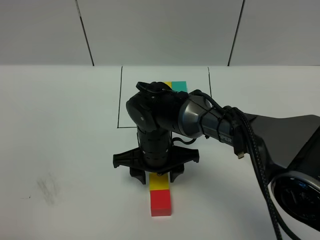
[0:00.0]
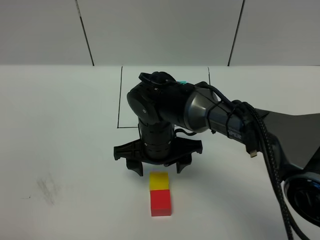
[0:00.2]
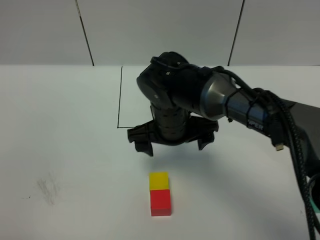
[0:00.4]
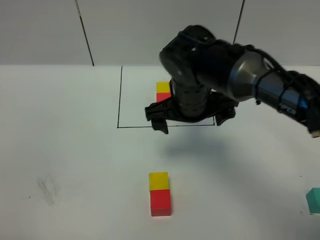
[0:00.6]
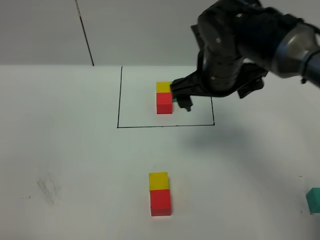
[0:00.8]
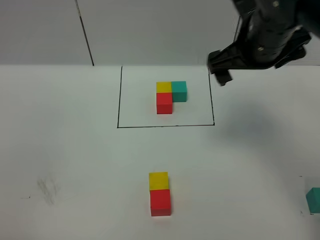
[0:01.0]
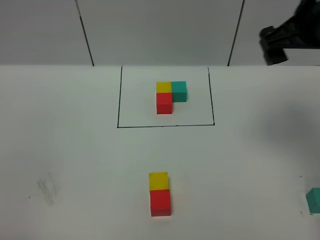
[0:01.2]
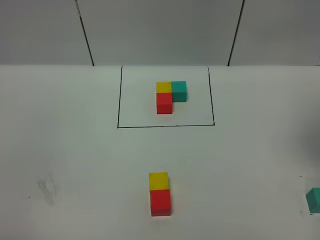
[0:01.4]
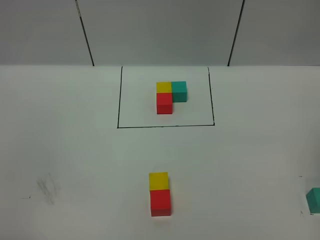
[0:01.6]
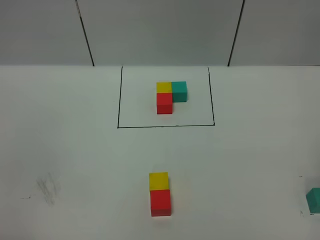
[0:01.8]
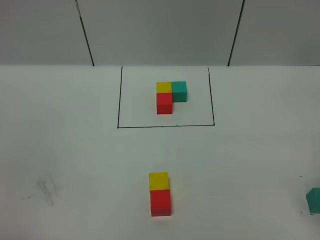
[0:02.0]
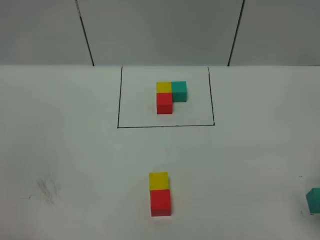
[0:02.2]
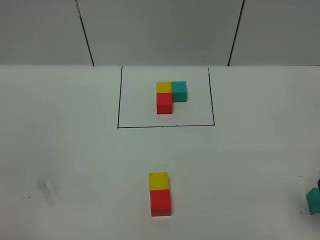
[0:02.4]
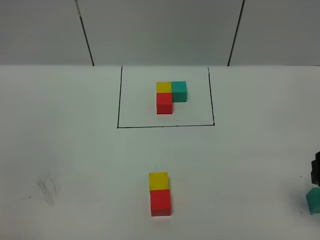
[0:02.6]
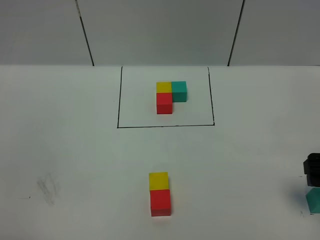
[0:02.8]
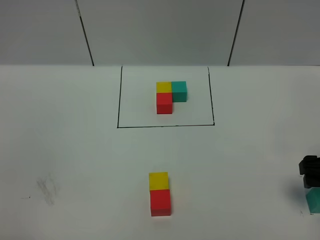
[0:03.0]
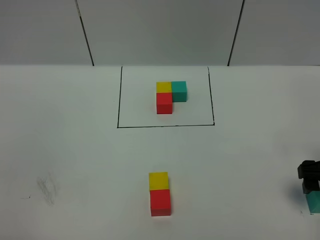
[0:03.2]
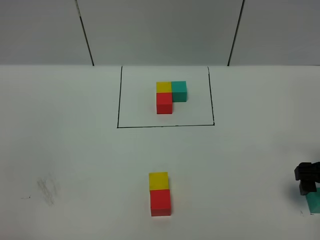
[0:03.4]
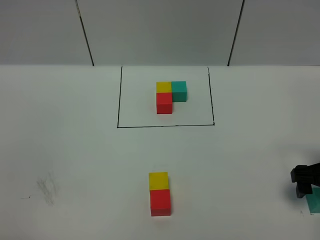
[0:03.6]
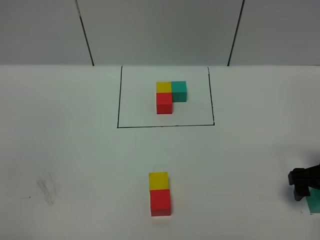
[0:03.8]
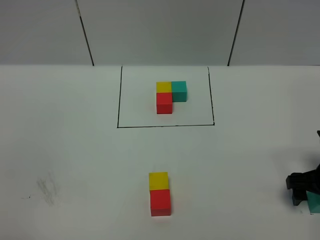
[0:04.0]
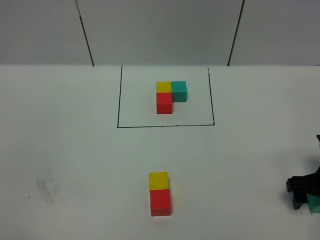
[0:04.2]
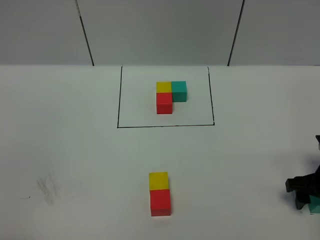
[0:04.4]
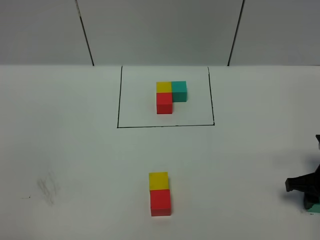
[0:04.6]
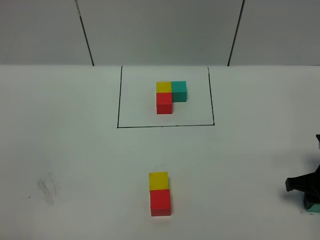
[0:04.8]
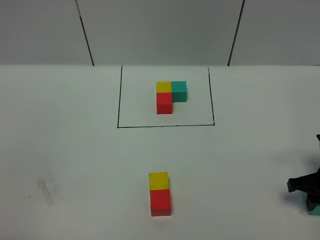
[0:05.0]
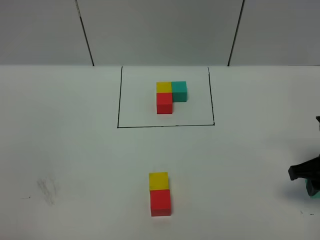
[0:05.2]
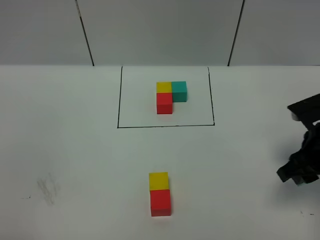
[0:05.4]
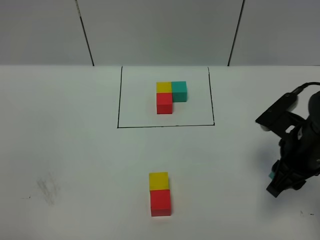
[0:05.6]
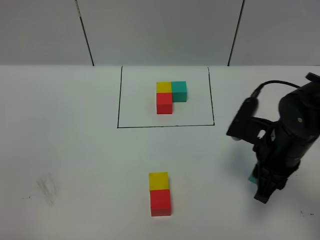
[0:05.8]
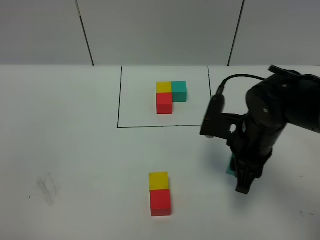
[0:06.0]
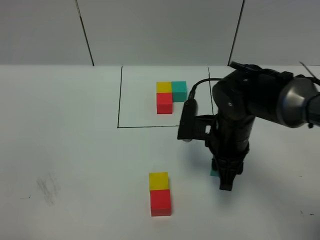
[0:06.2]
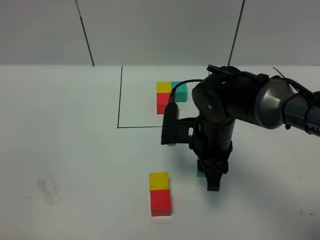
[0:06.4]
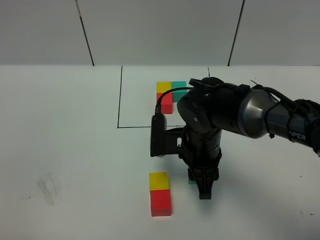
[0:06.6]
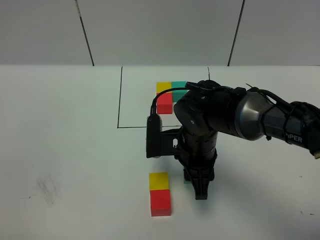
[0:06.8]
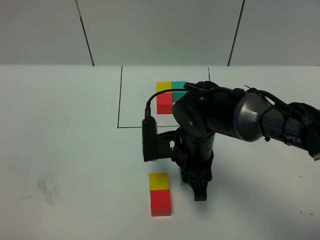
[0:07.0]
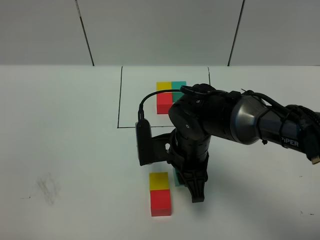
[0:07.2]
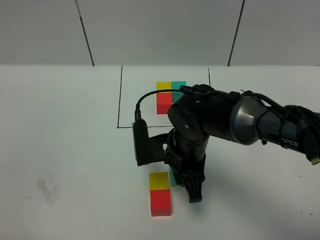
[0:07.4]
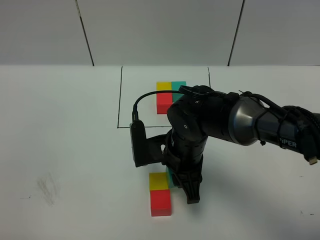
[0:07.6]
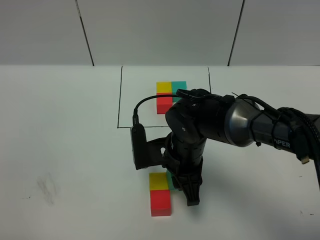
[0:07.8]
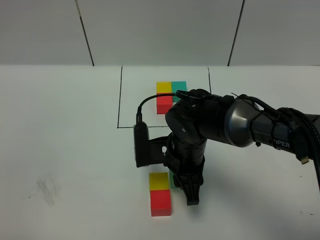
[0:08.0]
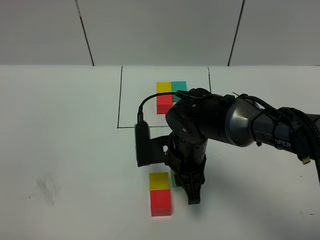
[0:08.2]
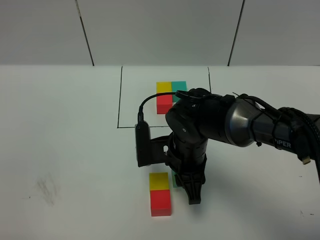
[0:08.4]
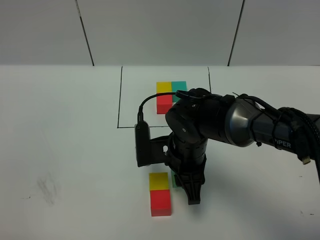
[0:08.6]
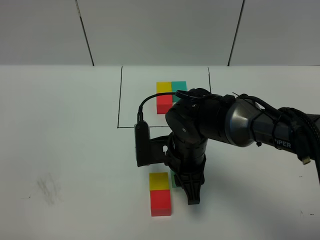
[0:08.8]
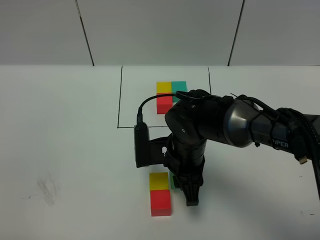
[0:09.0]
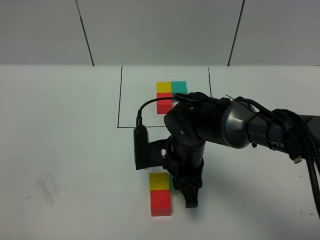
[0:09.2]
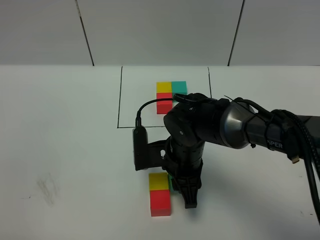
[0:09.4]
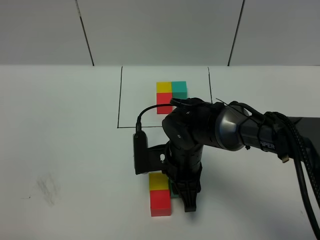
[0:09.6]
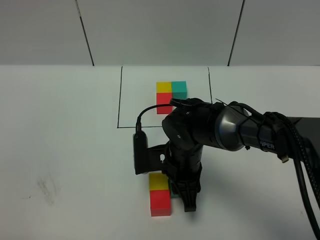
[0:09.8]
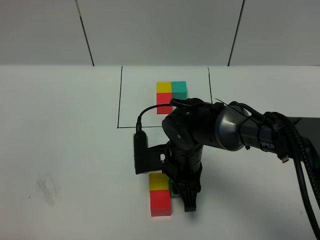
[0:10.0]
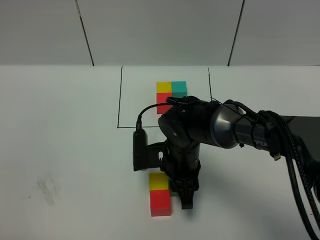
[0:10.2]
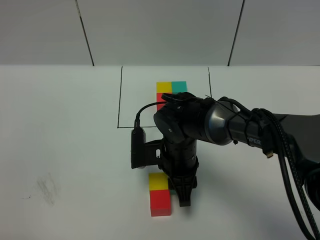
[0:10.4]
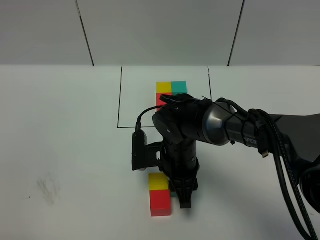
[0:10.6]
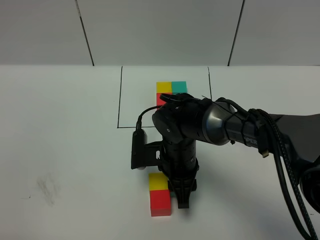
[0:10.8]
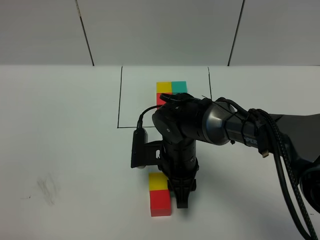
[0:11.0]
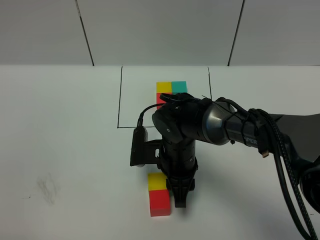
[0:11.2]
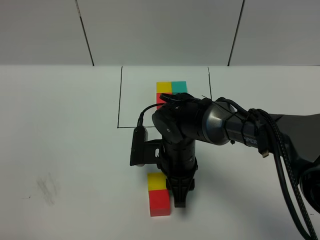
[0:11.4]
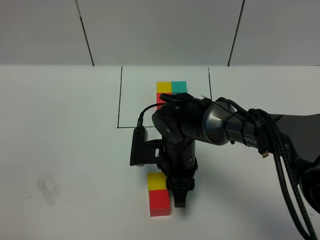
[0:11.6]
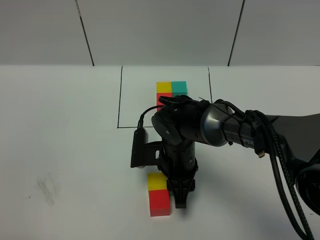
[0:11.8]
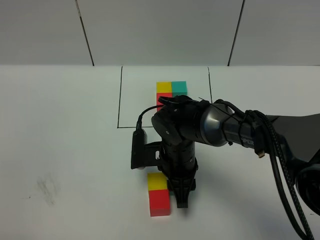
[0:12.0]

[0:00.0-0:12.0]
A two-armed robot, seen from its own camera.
Task of the whole recording: According to the building block template in front, assemble the scattered blocks together.
0:00.0 to 0:01.6: The right gripper shifts approximately 40 cm to the right and upward, and opens its fingers.
0:01.6 to 0:03.0: The right gripper is displaced downward by approximately 20 cm.
0:03.0 to 0:04.4: The right gripper shifts about 10 cm downward.
0:04.4 to 0:06.0: The right gripper is displaced to the left and upward by about 20 cm, and closes.
0:06.0 to 0:07.6: The right gripper shifts about 10 cm to the left.
0:07.6 to 0:09.0: Neither gripper changes place.
0:09.0 to 0:12.0: The grippers move only a little.

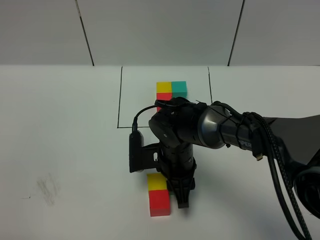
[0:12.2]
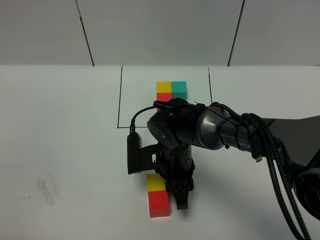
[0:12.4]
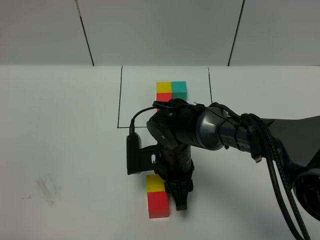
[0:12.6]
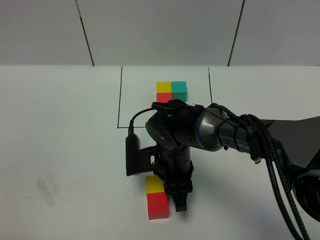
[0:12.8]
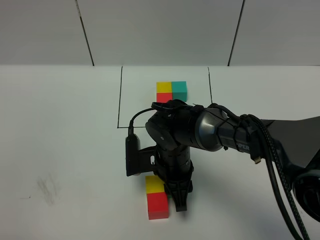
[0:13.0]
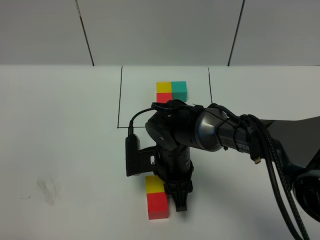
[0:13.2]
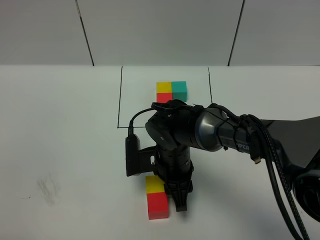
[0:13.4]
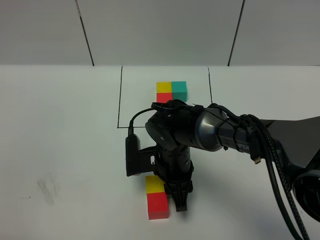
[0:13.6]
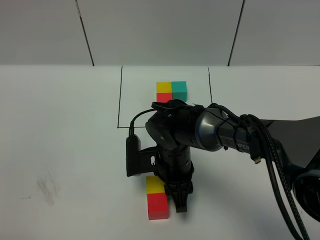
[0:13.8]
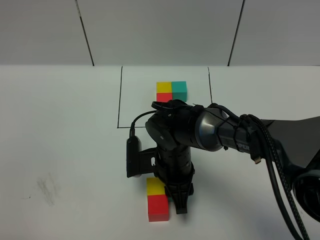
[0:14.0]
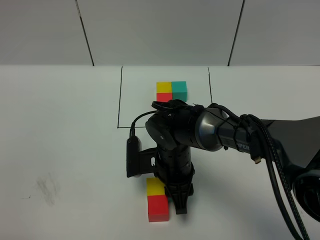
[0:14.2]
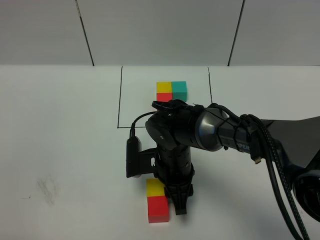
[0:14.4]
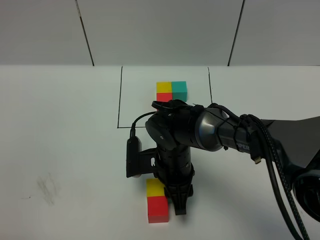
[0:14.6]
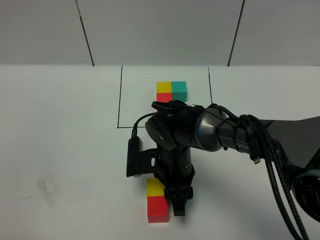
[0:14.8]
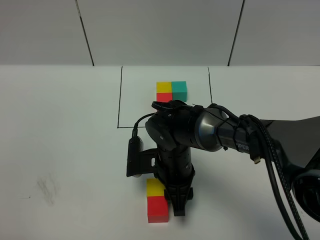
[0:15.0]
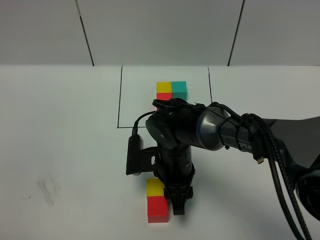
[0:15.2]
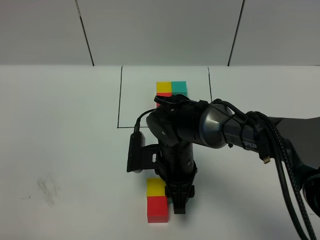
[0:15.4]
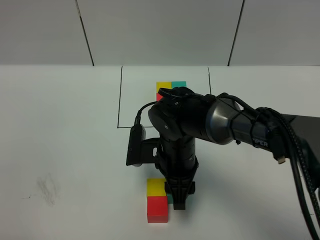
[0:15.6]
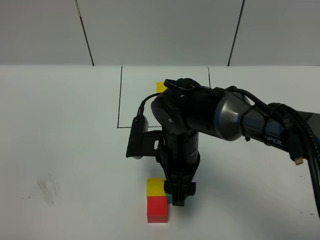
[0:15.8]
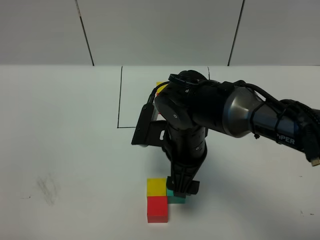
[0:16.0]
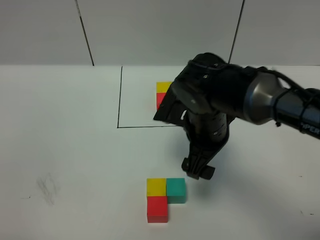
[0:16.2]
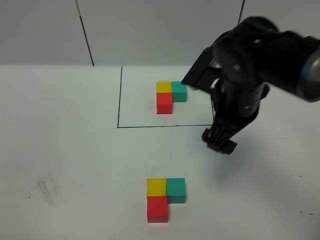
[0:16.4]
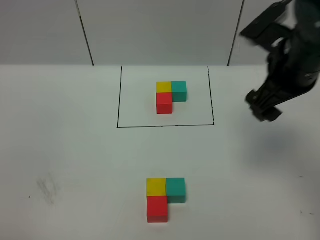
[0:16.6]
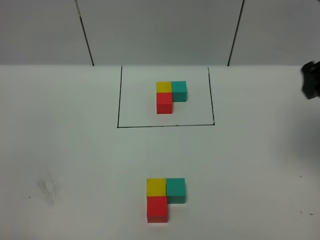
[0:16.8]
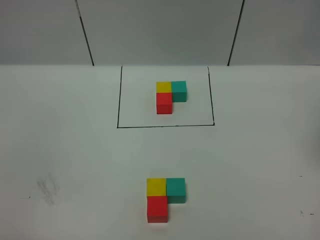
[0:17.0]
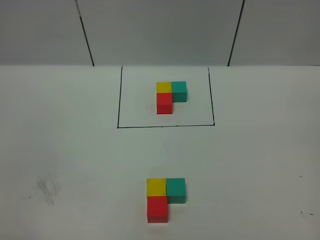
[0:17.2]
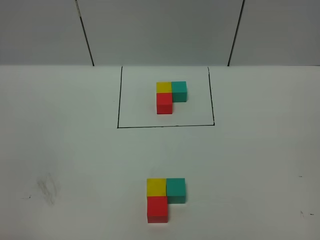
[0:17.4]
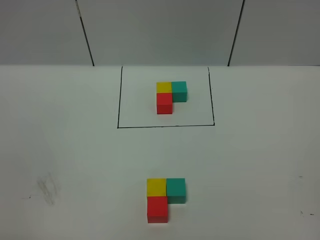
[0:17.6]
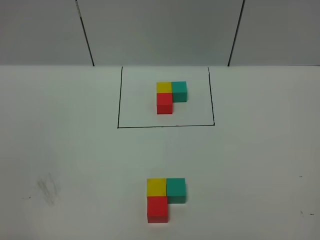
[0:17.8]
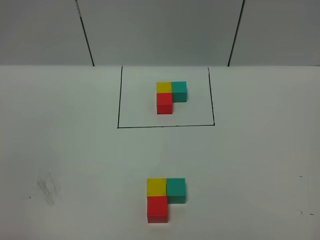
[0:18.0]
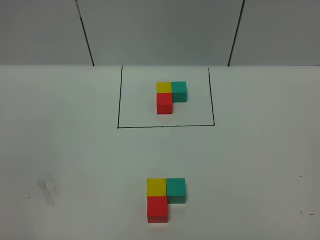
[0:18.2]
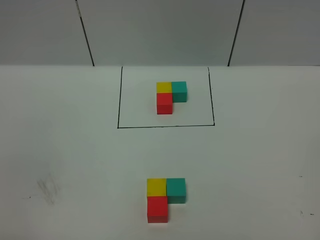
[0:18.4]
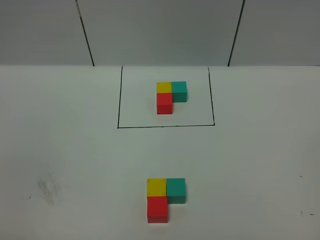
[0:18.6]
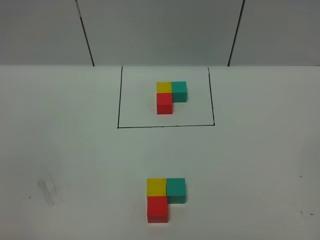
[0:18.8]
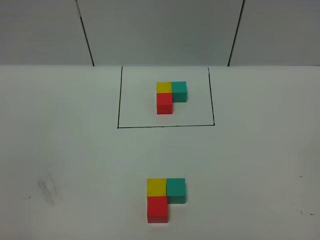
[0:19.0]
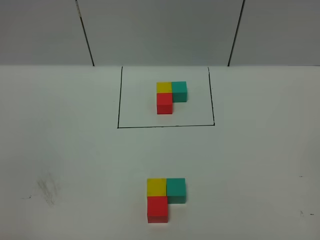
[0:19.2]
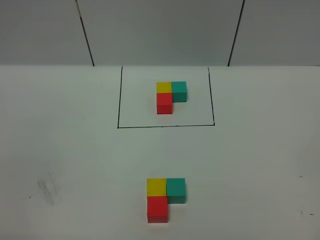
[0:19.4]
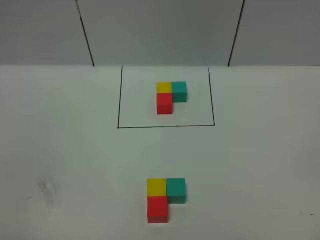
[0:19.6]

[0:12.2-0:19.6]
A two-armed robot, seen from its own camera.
Task of the whole recording: According to the building block template in front, assemble the scattered blocks together.
Step, 0:12.2 to 0:16.2: Put the green cube on the right of the yellow cube.
0:12.2 to 0:13.6: Both grippers stay about where they are.
0:13.6 to 0:15.2: There are only small adjustments of the grippers.
0:15.2 to 0:16.6: The right gripper is displaced upward and to the right by approximately 30 cm, and opens its fingers.
0:16.6 to 0:18.2: The right gripper shifts approximately 35 cm backward.
